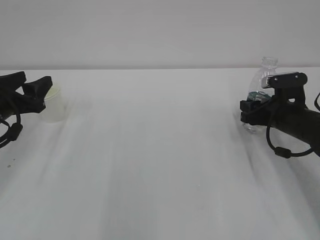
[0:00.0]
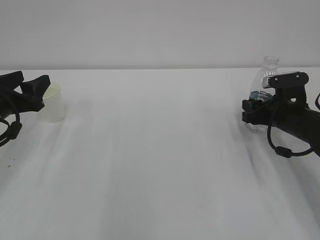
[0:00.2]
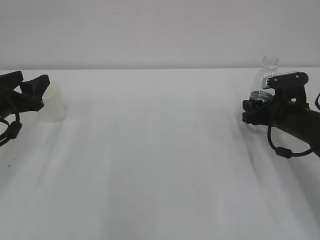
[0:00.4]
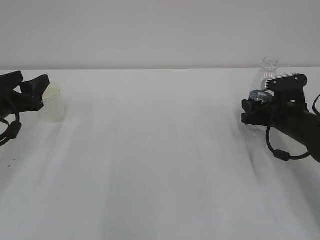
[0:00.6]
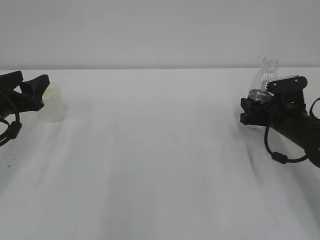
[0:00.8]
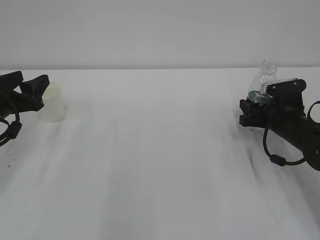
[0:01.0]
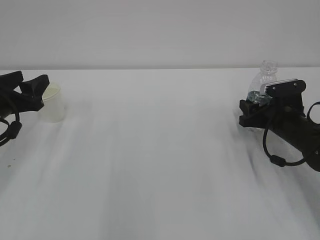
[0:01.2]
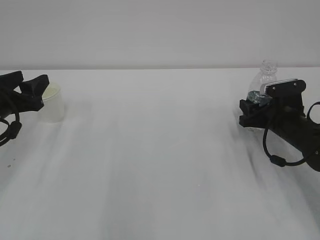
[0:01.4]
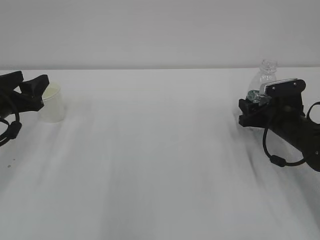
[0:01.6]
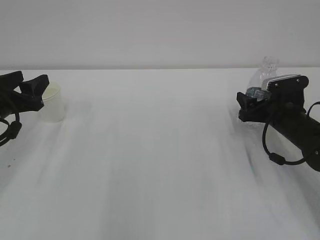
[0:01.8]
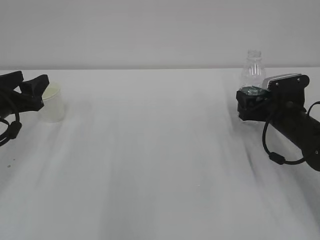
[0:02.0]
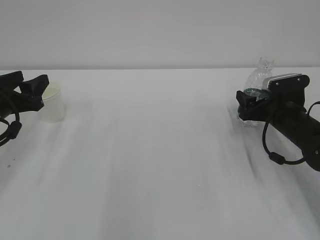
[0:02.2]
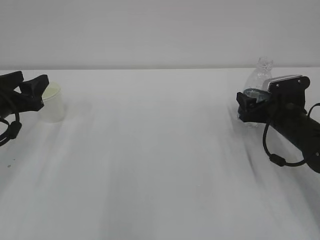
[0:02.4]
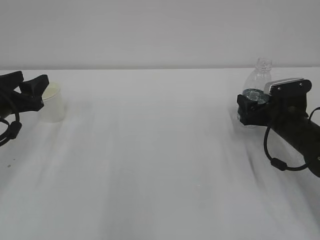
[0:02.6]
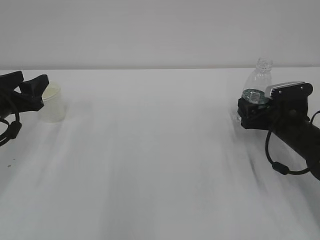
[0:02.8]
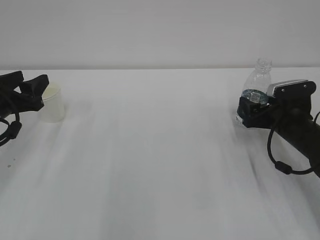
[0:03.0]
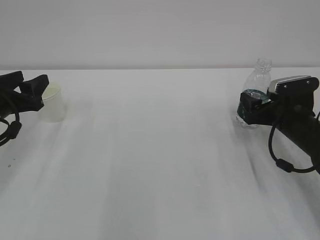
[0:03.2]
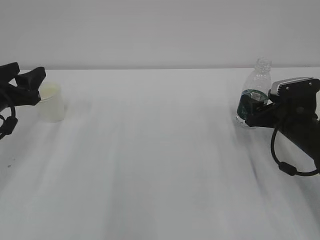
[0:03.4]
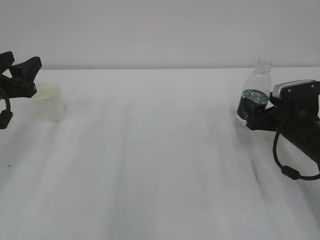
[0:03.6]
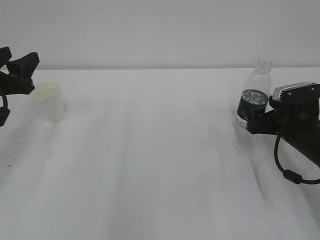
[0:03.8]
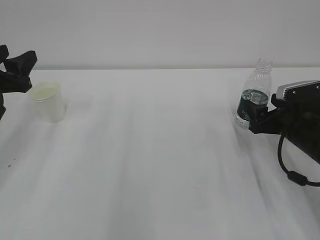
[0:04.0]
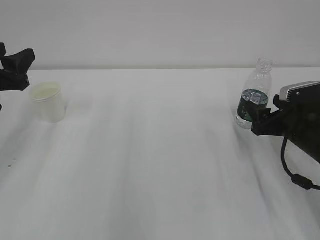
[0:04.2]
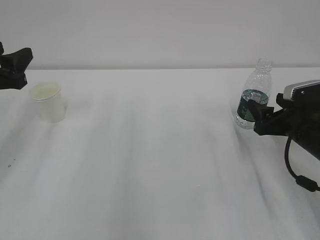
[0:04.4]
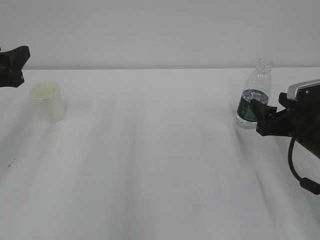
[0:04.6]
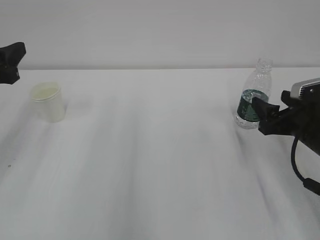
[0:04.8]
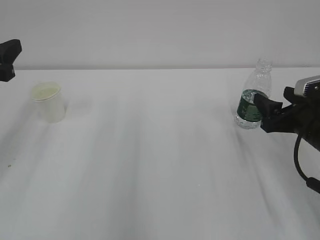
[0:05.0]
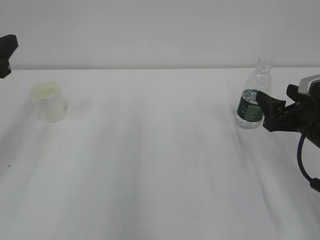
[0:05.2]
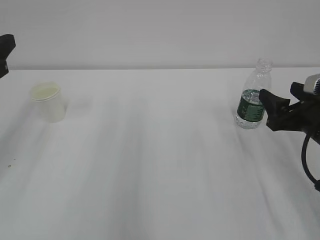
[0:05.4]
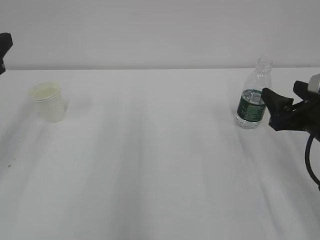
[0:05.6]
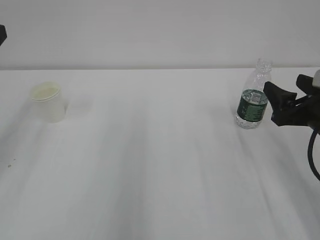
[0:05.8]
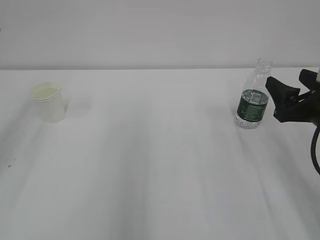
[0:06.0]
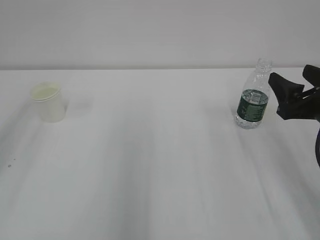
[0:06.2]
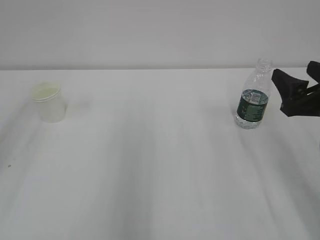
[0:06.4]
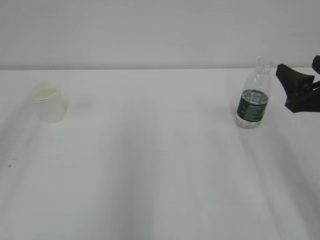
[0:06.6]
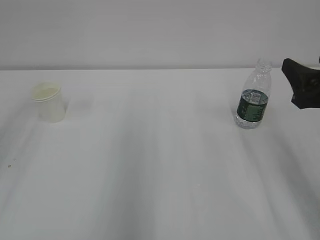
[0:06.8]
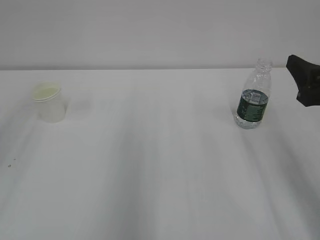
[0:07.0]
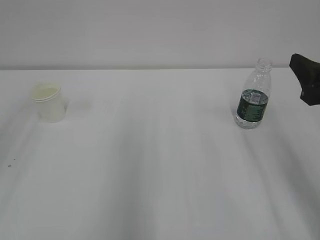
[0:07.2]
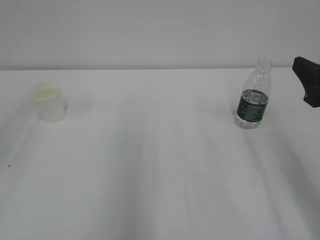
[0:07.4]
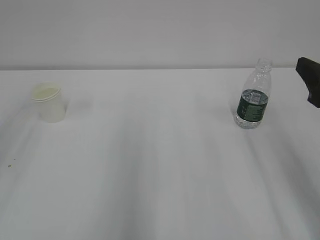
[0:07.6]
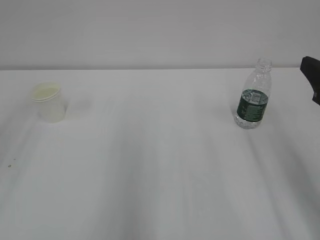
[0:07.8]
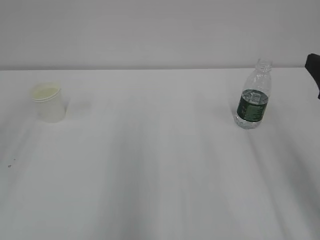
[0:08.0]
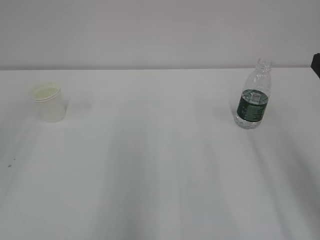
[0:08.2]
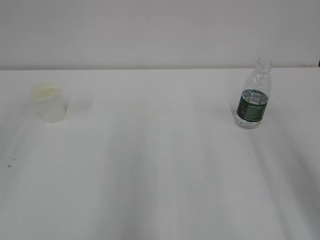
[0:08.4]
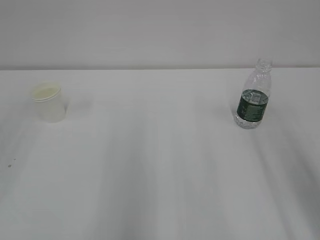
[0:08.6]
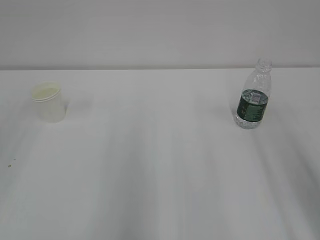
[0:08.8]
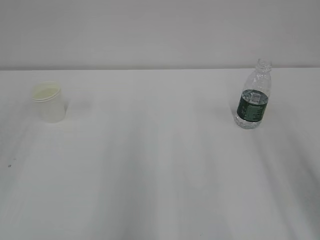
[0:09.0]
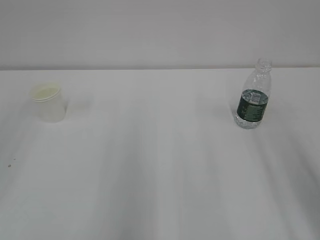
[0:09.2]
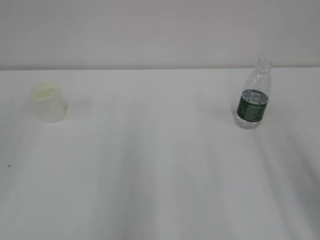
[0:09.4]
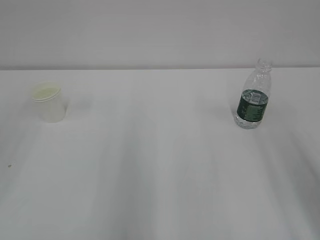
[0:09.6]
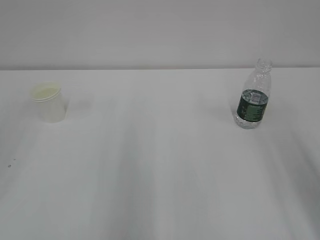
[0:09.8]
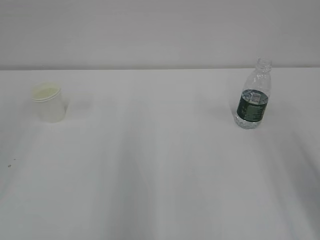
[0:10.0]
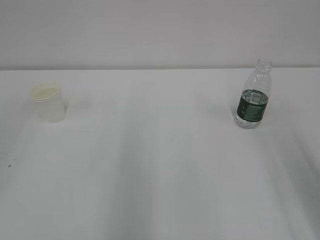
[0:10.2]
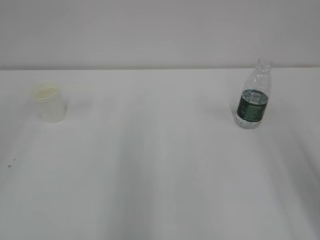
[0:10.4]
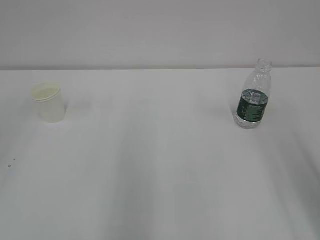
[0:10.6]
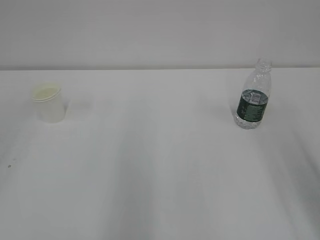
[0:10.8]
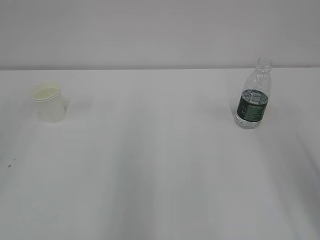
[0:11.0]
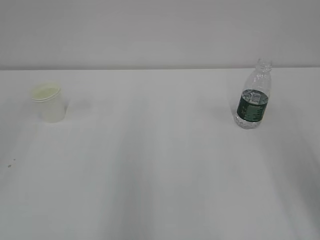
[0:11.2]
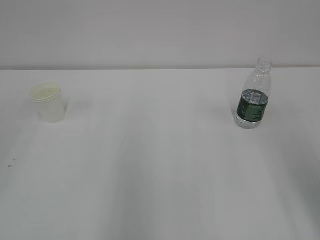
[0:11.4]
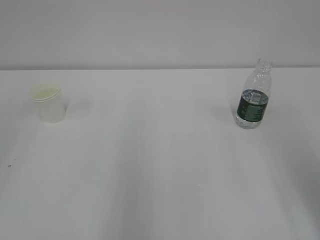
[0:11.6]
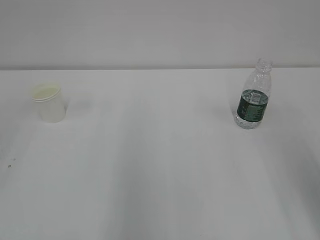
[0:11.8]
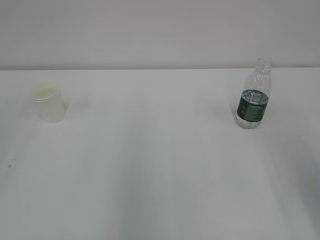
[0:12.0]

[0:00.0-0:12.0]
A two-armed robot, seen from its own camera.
0:00.0 to 0:01.6: There are only small adjustments of the grippers.
0:01.6 to 0:03.0: The right gripper opens up.
0:03.0 to 0:04.4: The right gripper is displaced backward by roughly 5 cm; the left gripper moves upward, about 5 cm.
0:04.4 to 0:06.0: Both grippers move upward, approximately 5 cm.
0:06.0 to 0:07.6: The right gripper moves upward, roughly 5 cm.
0:07.6 to 0:09.0: The right gripper goes roughly 5 cm backward.

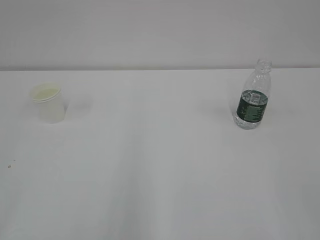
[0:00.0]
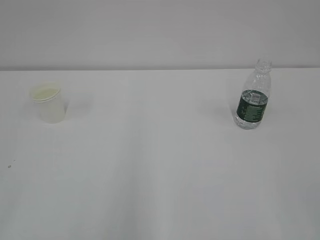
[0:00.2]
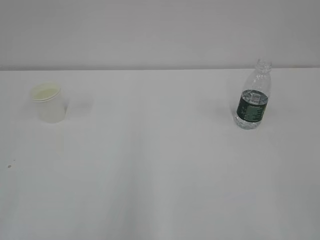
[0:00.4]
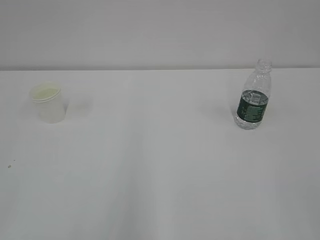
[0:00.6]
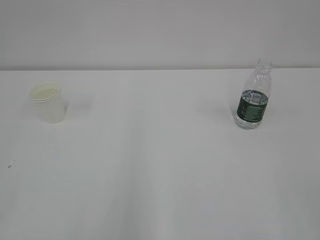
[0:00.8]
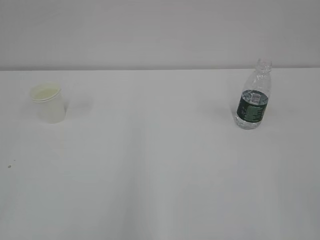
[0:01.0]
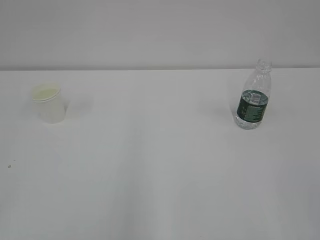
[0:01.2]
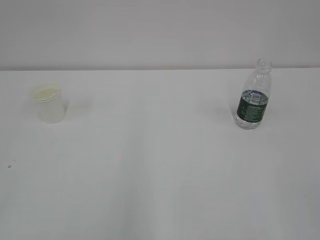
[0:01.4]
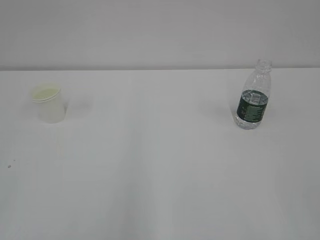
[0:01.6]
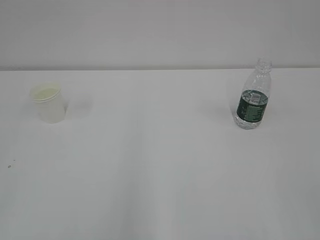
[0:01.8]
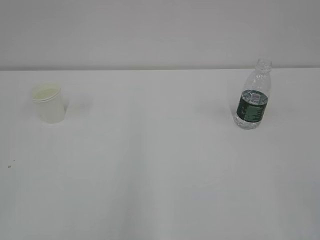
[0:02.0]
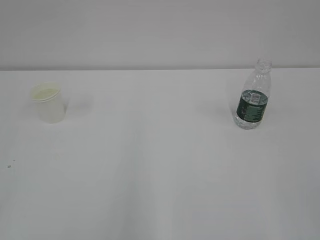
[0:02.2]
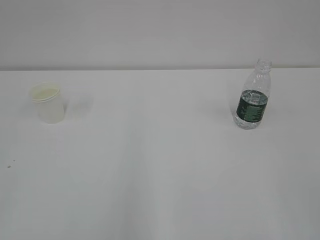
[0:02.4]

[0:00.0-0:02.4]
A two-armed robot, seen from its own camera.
0:01.2 to 0:02.4: Both grippers stay put.

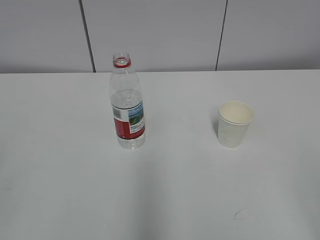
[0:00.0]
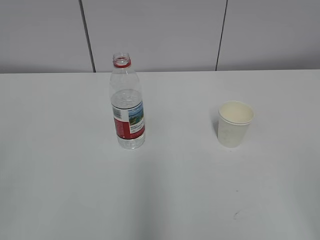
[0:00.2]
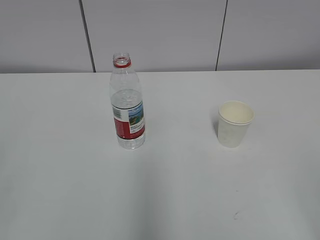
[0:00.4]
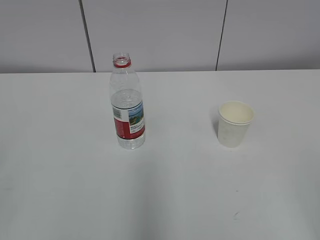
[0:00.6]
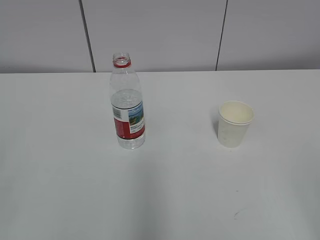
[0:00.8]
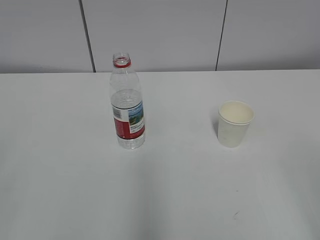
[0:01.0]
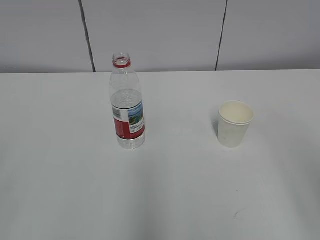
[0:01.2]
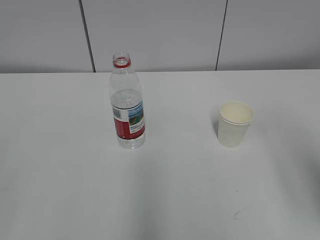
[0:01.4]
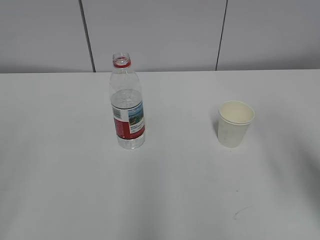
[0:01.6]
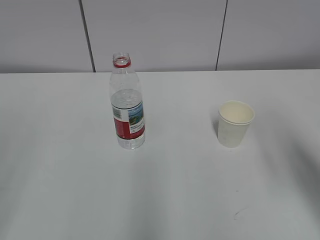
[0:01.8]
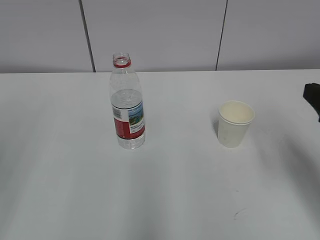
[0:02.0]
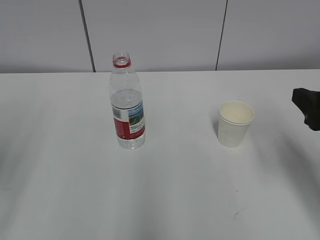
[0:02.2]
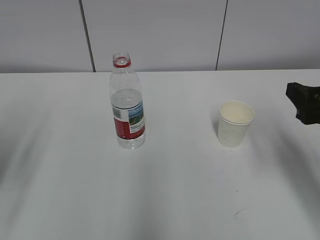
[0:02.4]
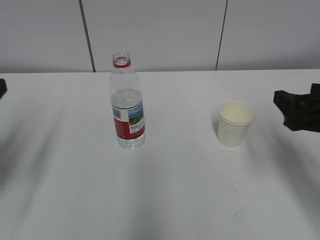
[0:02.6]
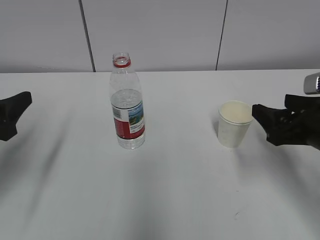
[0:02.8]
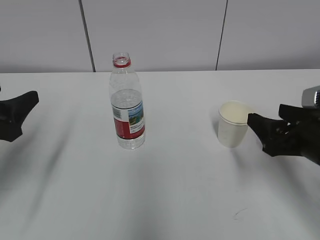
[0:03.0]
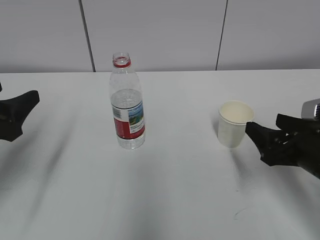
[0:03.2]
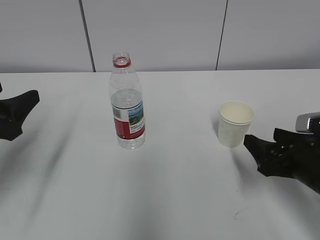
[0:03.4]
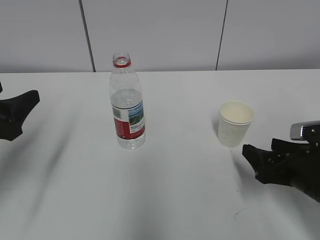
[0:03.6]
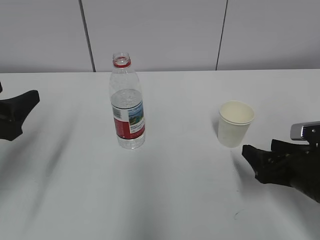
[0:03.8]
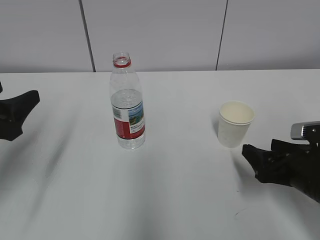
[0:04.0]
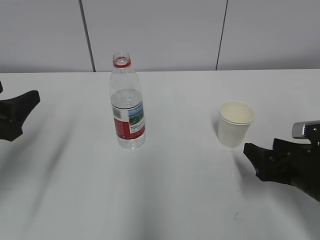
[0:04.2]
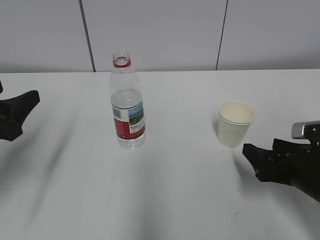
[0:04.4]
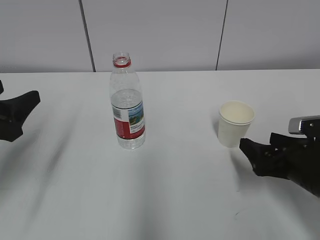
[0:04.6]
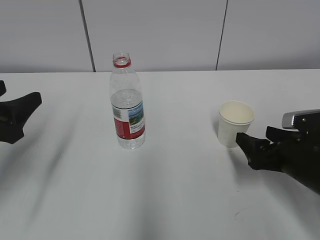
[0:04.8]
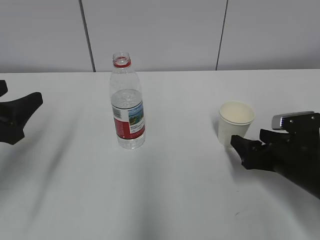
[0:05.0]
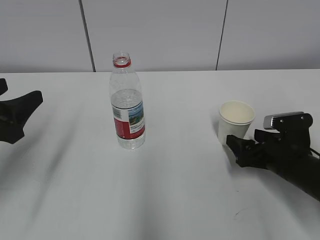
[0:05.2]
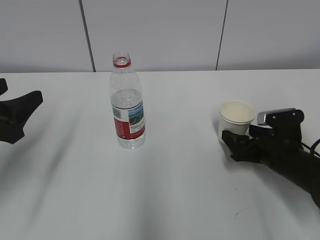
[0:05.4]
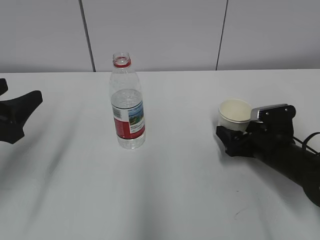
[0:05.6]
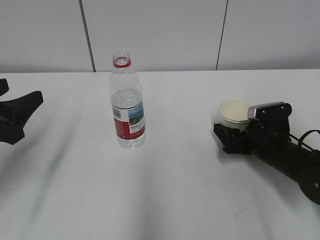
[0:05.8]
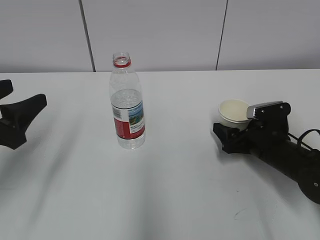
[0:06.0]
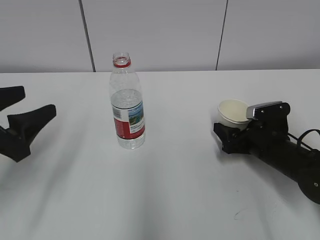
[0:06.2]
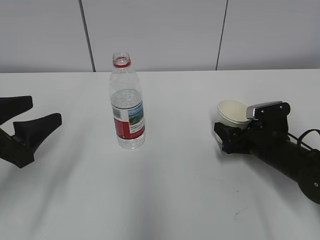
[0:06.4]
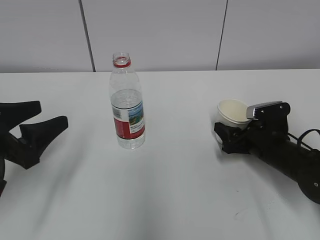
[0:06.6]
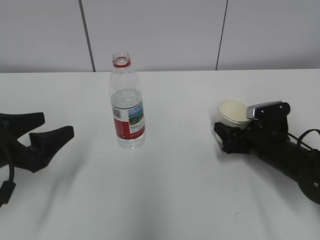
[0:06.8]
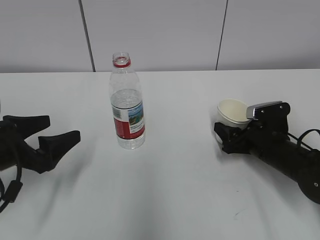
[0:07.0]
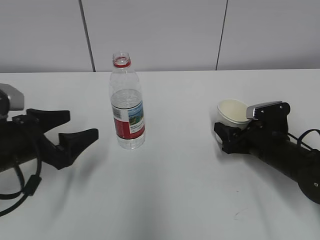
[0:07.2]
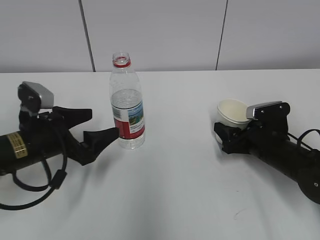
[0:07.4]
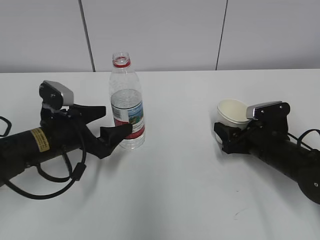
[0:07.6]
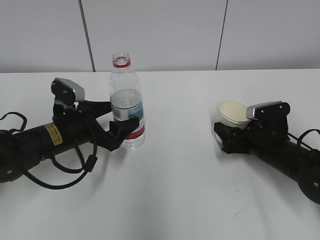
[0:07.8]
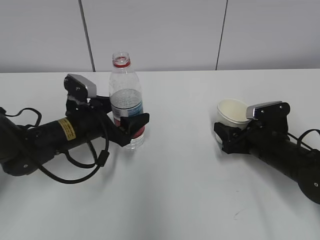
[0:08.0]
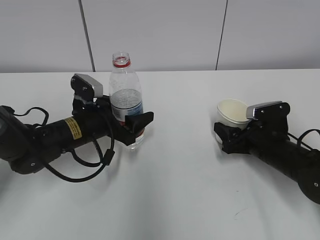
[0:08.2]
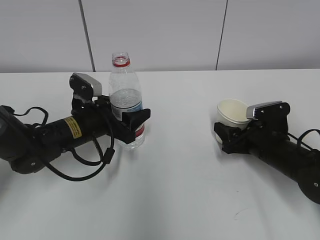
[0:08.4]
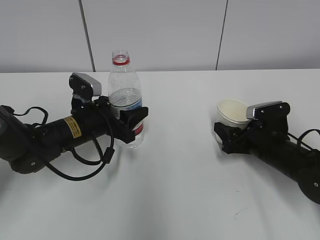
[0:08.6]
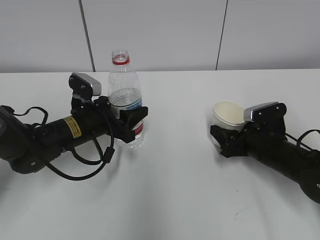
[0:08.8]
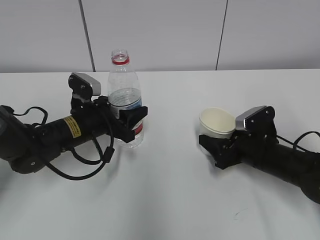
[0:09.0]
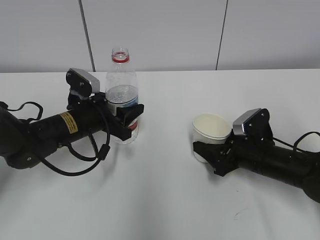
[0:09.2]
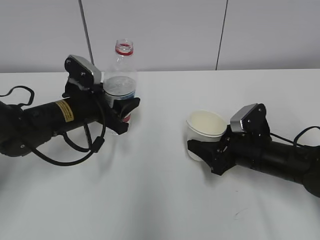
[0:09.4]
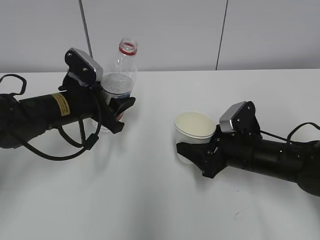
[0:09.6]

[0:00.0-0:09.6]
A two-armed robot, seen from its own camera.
Step, 0:00.0 to 0:07.0: Grab the paper cup with the right hand.
Step, 0:07.2 to 0:07.4: Grab the water bottle with the left hand.
0:01.6 to 0:03.2: The left gripper travels forward and downward by some 25 cm. Meanwhile the right gripper is displaced downward and forward by roughly 20 cm.
0:03.2 to 0:04.8: The grippers make only small movements.
0:04.8 to 0:06.4: The right gripper is displaced forward by some 10 cm, and closes its fingers.
0:06.4 to 0:08.0: The left gripper moves forward, to the right and downward, roughly 20 cm, and opens its fingers.
0:08.0 to 0:09.6: The right gripper moves to the left, about 5 cm; the left gripper closes up.
